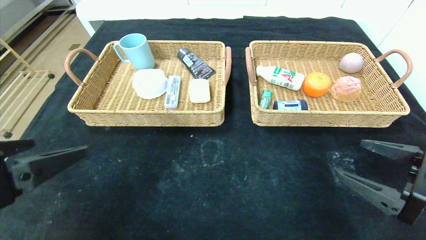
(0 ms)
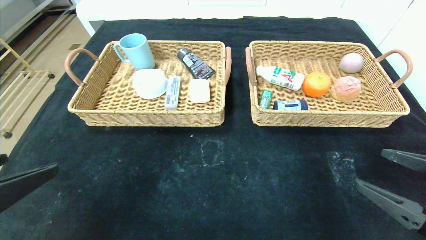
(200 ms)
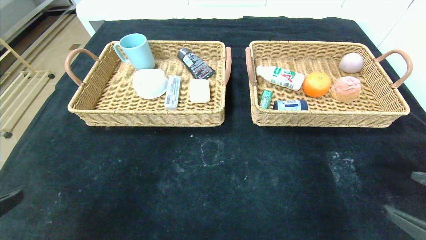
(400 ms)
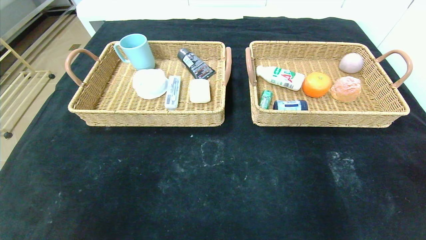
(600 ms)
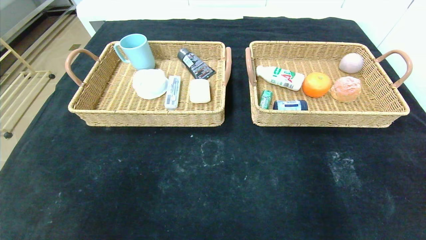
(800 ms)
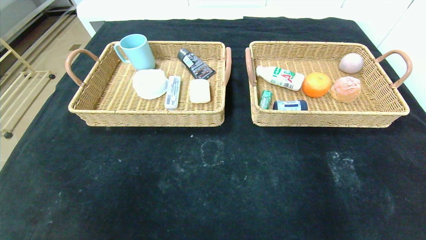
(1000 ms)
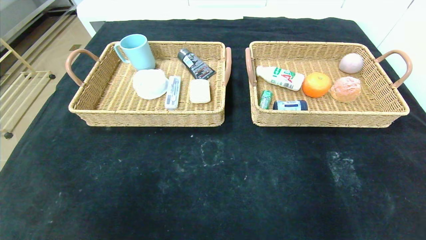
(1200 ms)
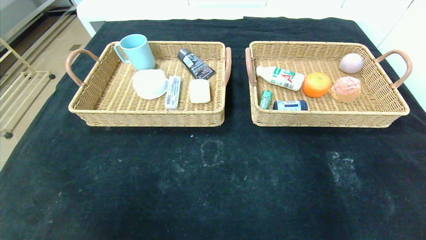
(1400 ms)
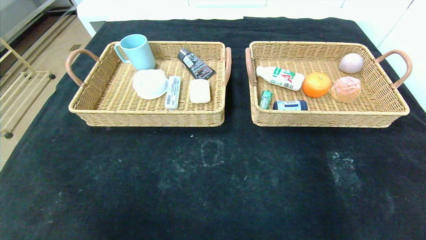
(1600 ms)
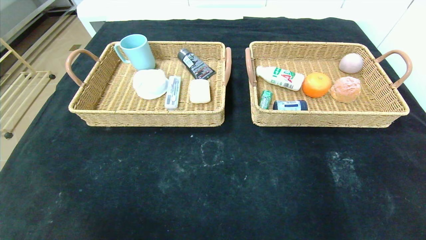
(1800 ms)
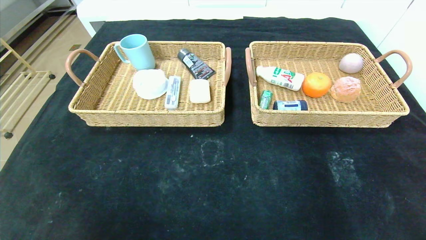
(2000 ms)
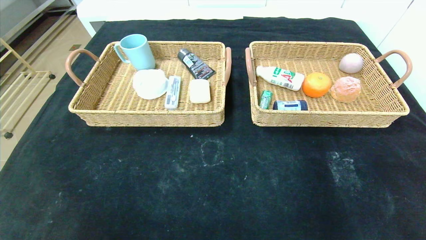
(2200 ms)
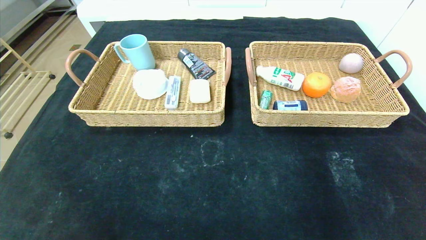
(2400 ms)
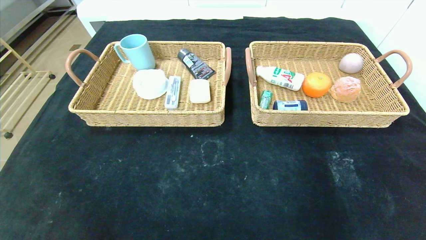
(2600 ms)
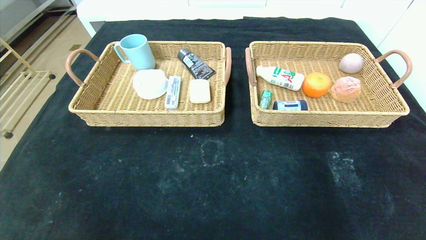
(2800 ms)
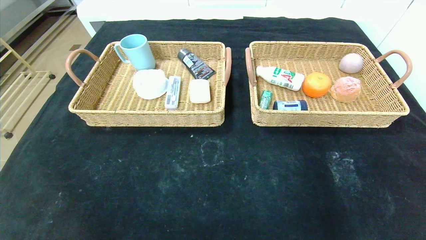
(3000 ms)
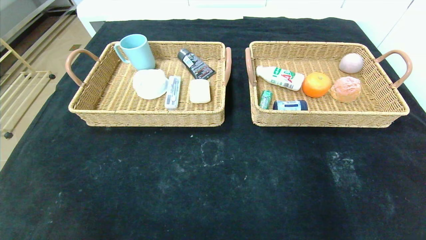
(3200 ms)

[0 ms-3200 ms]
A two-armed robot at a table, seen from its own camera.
0 ms to 1600 ms: The left gripper travels backward and downward by approximately 20 cm, while the right gripper goes roughly 20 cm backward.

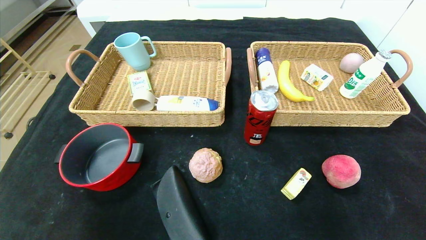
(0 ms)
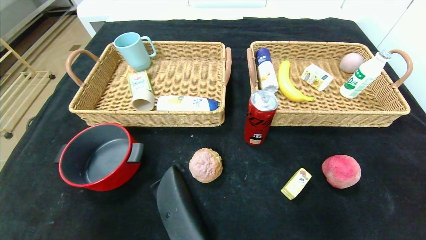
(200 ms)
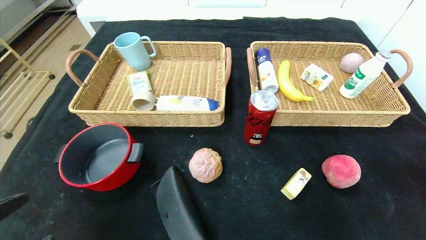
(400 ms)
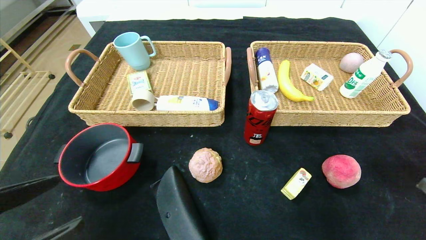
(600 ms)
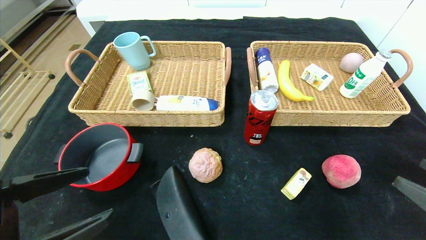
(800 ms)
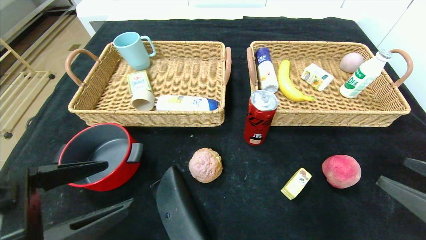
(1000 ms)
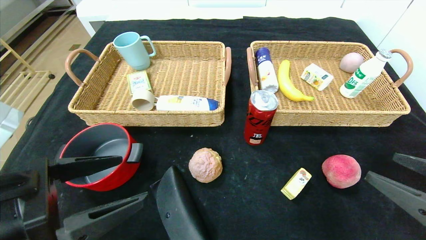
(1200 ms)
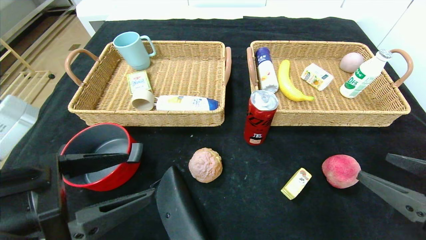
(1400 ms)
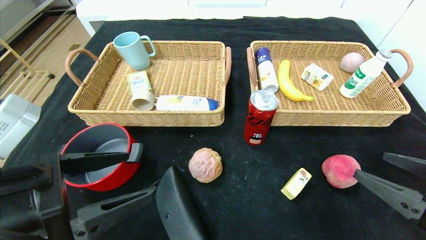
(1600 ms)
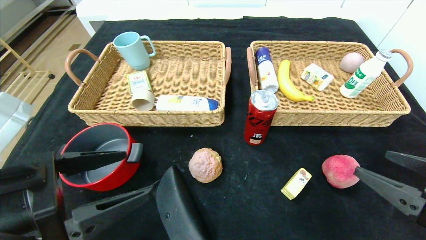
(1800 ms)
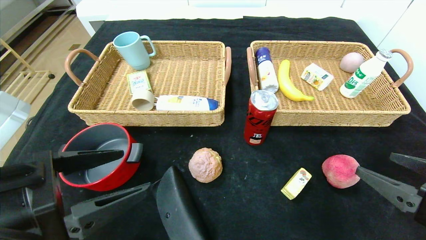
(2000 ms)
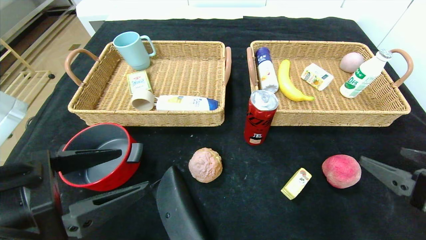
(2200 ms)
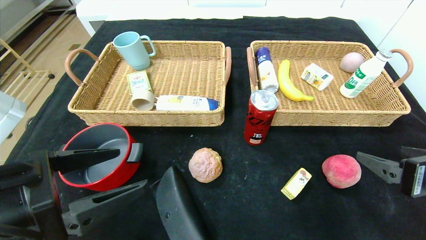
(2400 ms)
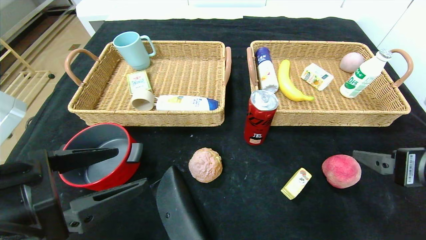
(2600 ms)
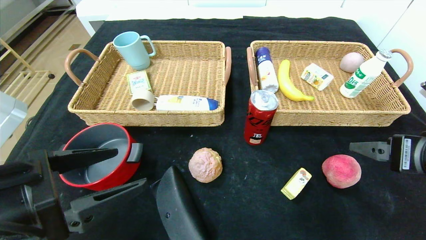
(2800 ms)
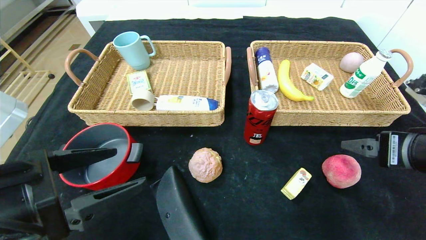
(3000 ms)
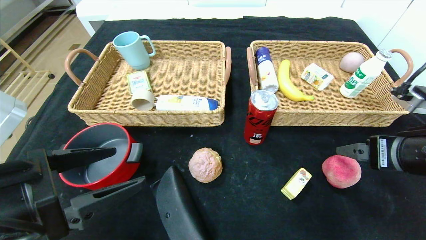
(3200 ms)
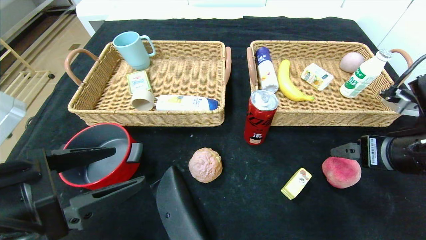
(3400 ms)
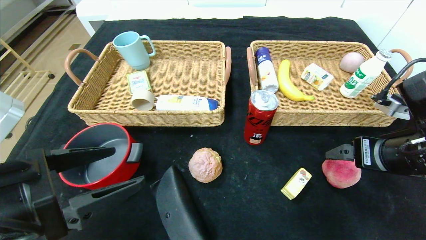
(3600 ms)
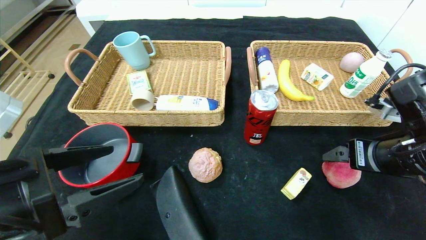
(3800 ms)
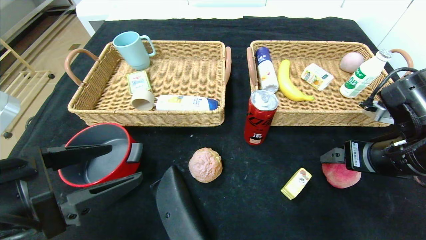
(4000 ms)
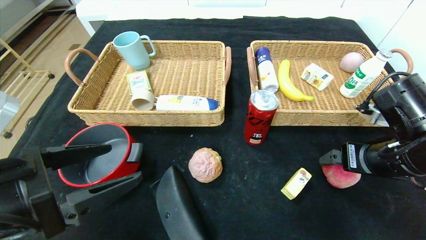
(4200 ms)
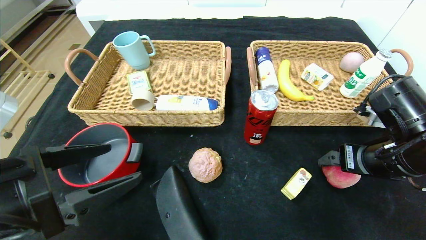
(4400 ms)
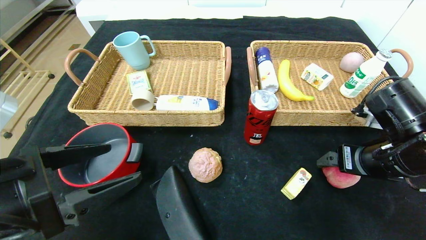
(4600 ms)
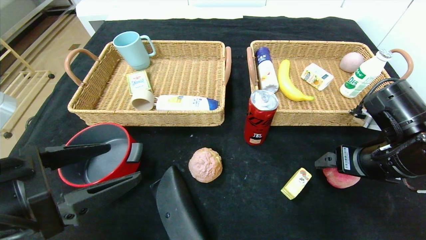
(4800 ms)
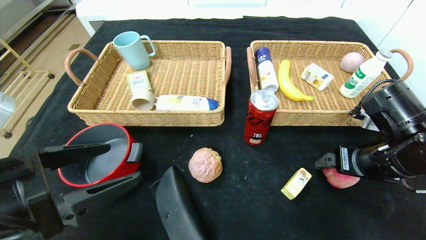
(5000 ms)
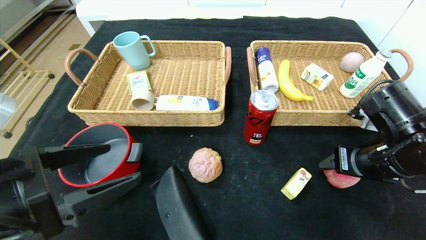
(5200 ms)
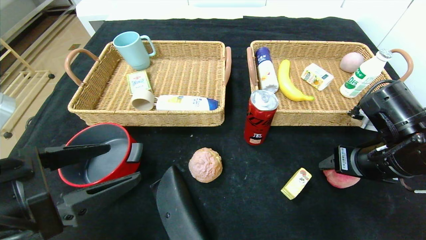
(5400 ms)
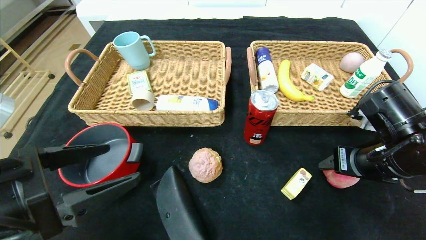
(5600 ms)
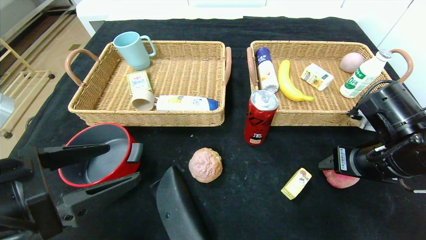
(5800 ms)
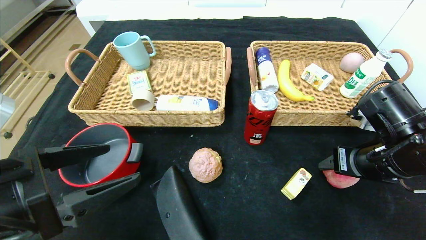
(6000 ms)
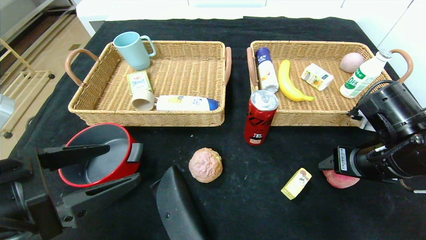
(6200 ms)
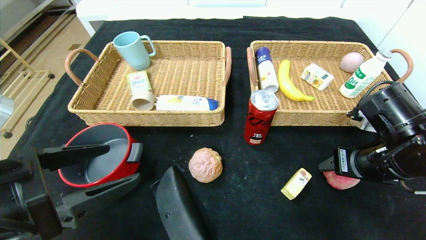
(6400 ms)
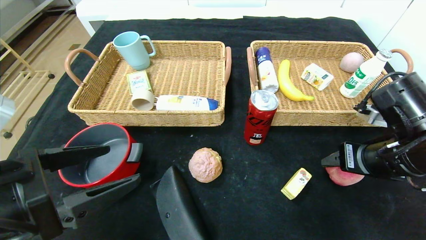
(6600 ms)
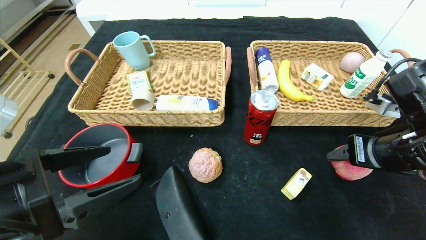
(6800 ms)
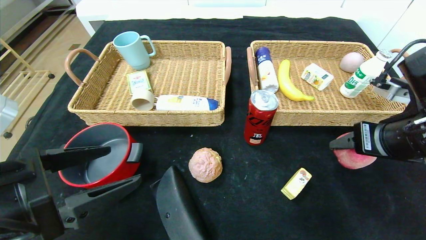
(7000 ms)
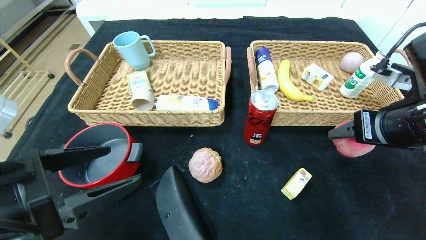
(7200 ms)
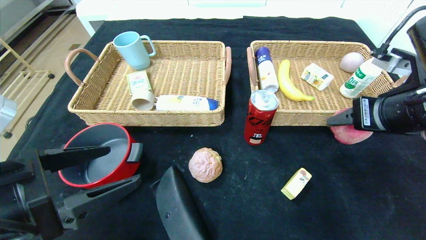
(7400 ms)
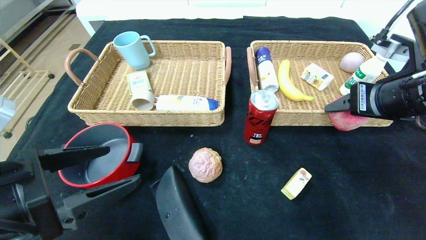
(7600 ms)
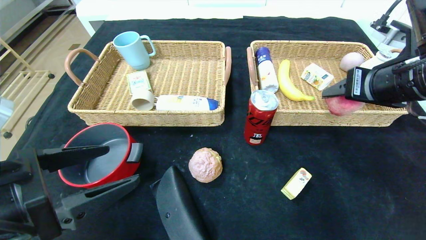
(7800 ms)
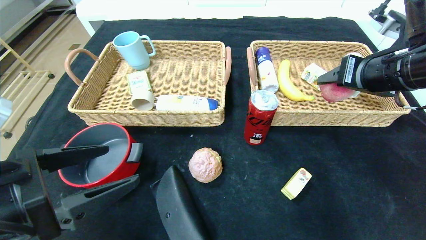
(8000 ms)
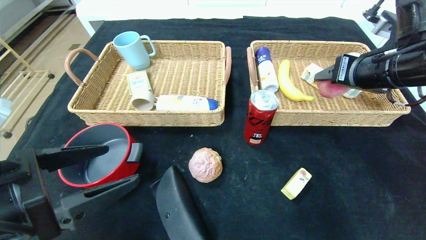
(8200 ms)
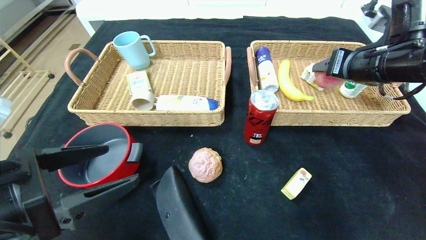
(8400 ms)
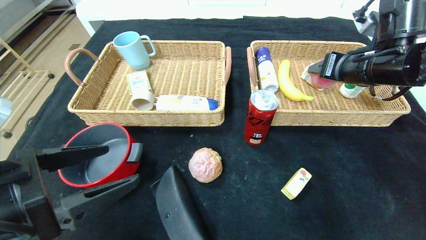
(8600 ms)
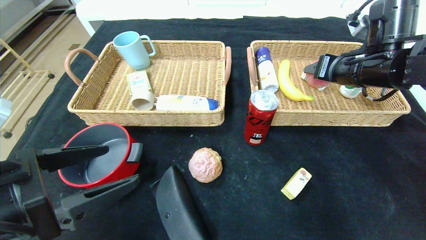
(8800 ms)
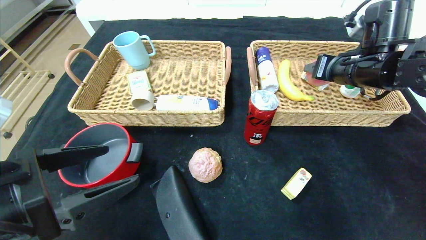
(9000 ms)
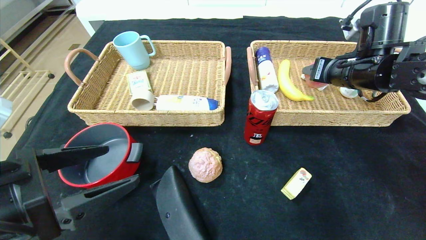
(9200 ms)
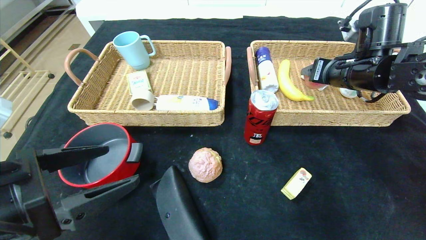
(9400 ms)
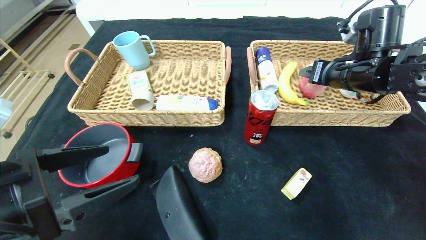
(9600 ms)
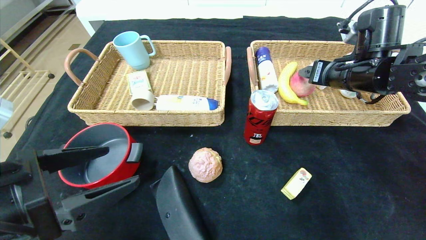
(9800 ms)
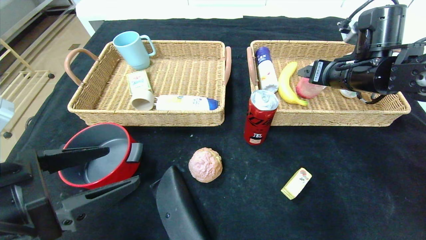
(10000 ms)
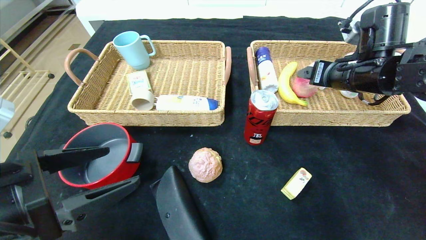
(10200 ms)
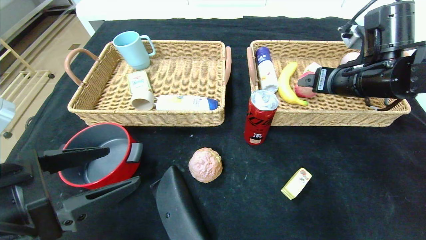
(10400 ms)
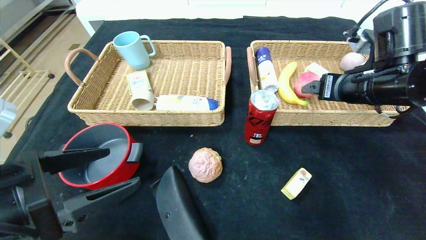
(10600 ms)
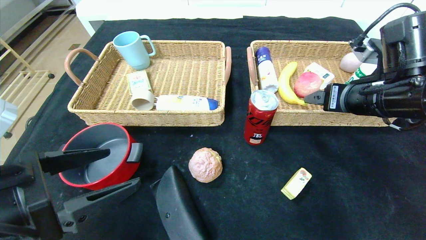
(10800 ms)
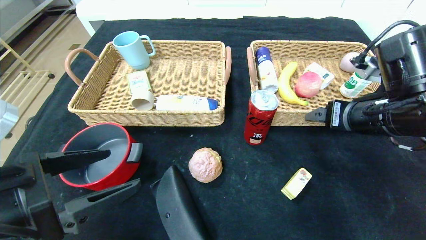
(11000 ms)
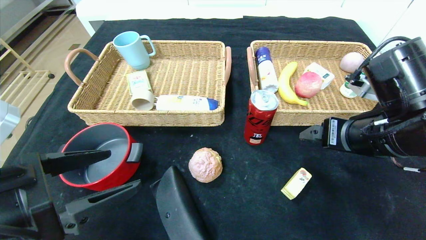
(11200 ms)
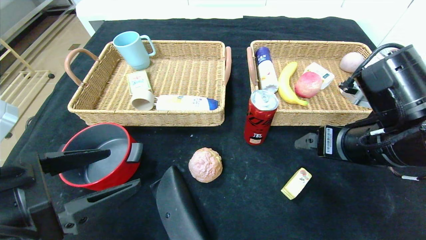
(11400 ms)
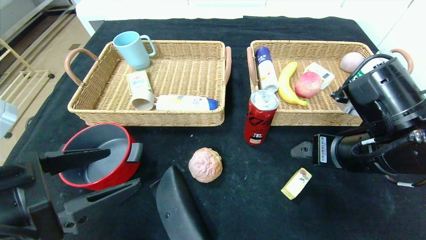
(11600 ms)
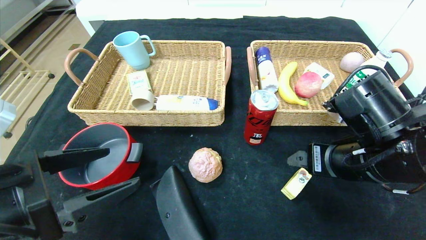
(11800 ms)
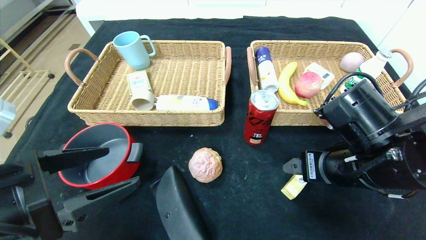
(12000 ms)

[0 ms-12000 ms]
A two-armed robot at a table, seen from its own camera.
Step, 0 ms to 10200 ms: Grasp the peach and put it in the right basket.
0 ms to 1600 ms: The left gripper moves forward, upward and to the right, some 15 cm; the right gripper moves forward, to the left and upward, about 15 cm.
1600 ms to 3000 ms: The right gripper moves forward, roughly 5 cm.
3000 ms to 4400 ms: The right gripper goes about 5 cm forward.
4400 ms to 6000 ms: The right gripper closes up.
6000 ms to 7600 ms: The right gripper heads upward, covering roughly 10 cm.
7600 ms to 9000 ms: The right gripper travels forward by approximately 10 cm.
9000 ms to 10400 ms: The right gripper opens up.
10400 ms to 12000 ms: The right gripper moves backward, downward and to the left, about 15 cm.

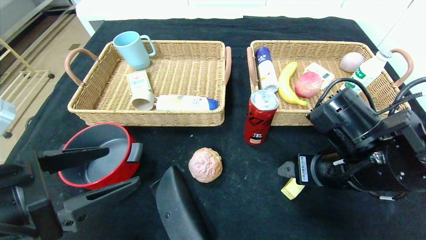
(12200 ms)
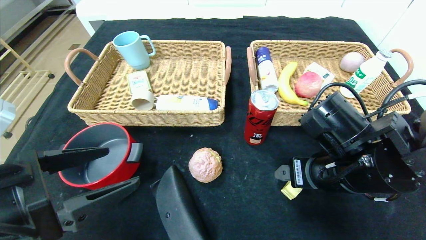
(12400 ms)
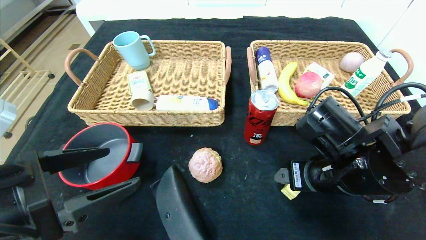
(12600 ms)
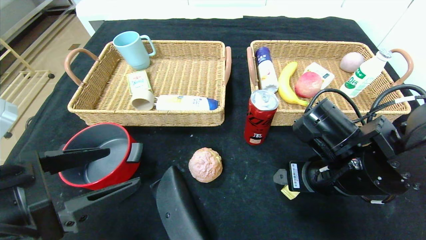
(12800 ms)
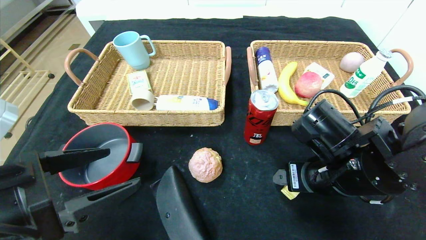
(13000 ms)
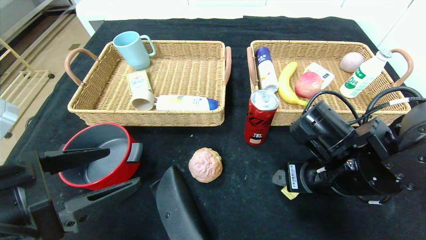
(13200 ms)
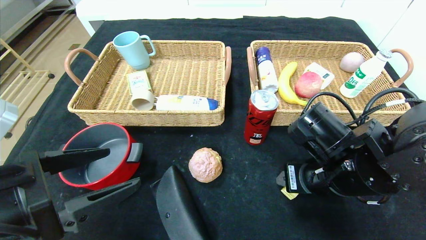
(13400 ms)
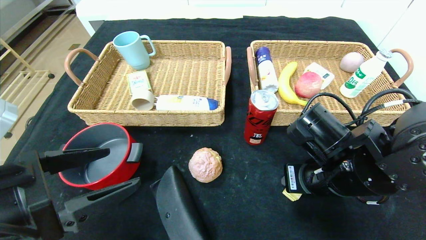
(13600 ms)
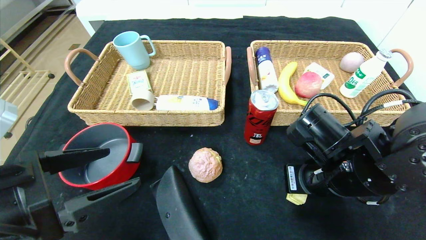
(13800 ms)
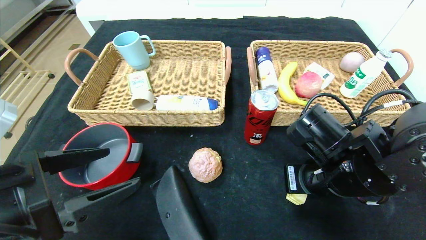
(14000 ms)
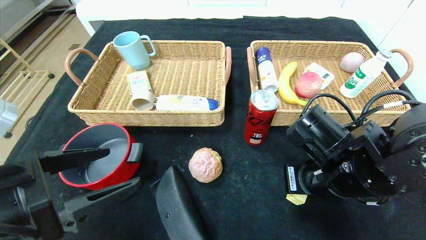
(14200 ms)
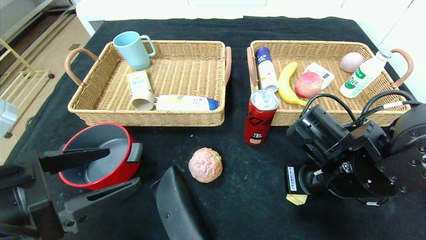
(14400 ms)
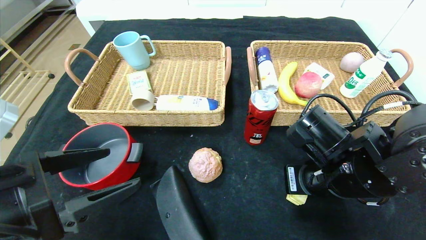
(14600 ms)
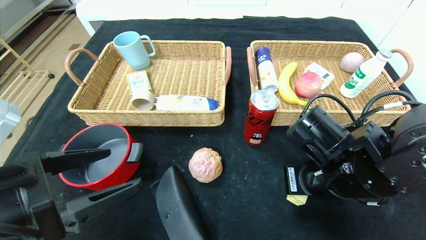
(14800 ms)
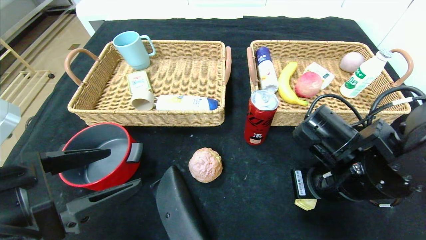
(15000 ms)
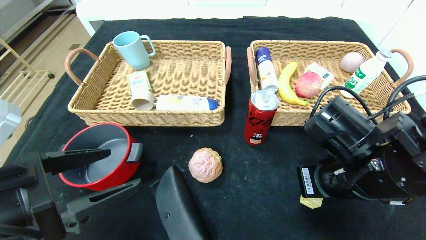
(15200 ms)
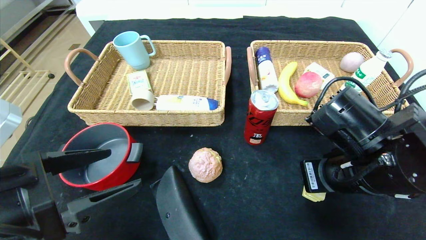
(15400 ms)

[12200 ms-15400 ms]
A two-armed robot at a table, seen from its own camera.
12200 ms to 13800 ms: The right gripper closes.
13800 ms to 15400 ms: The grippers make only small movements.
